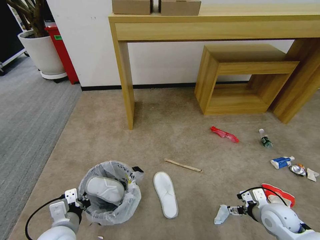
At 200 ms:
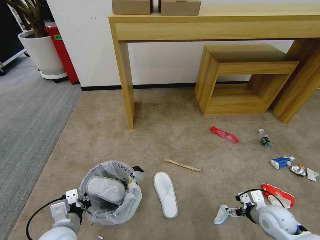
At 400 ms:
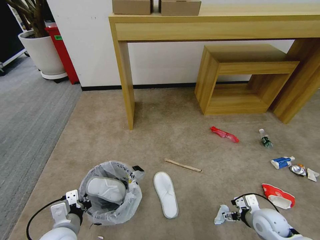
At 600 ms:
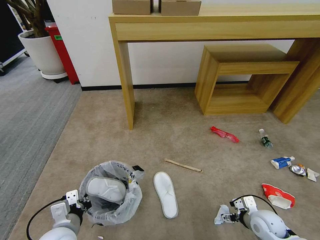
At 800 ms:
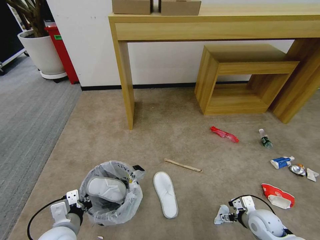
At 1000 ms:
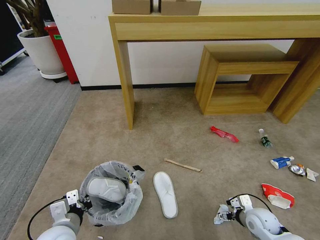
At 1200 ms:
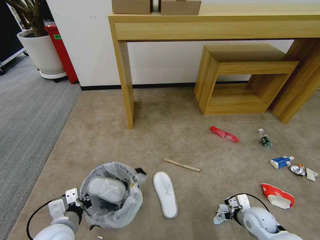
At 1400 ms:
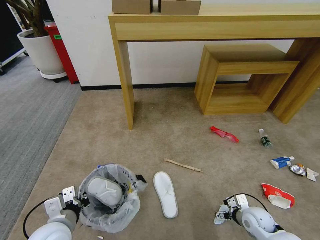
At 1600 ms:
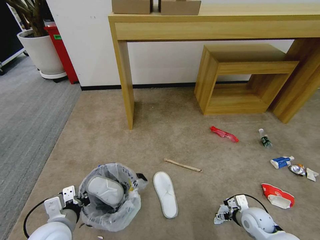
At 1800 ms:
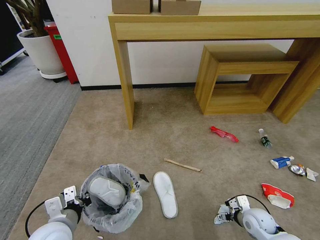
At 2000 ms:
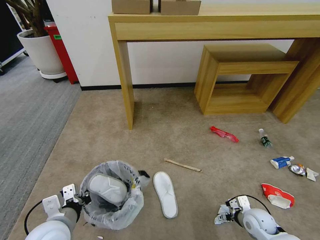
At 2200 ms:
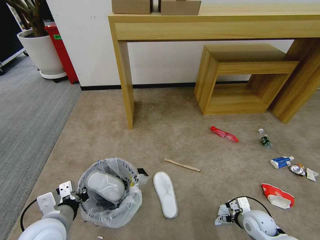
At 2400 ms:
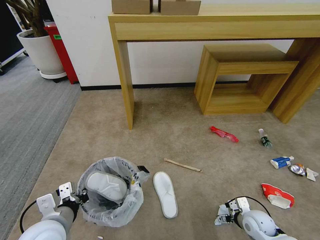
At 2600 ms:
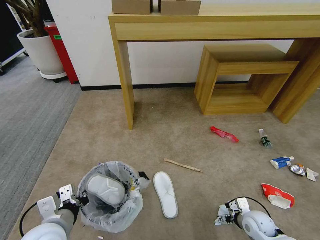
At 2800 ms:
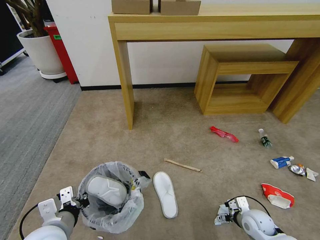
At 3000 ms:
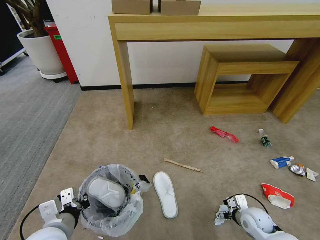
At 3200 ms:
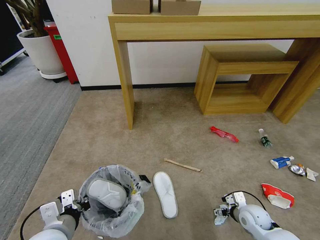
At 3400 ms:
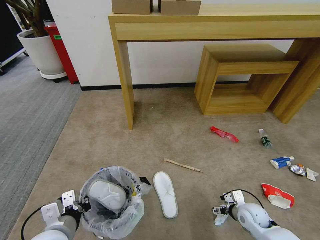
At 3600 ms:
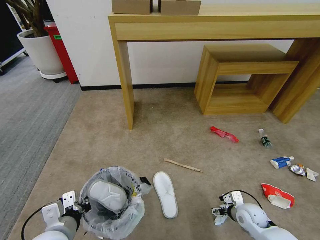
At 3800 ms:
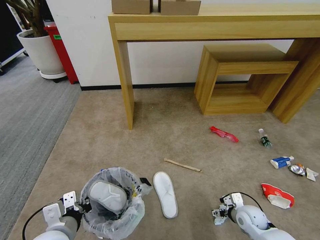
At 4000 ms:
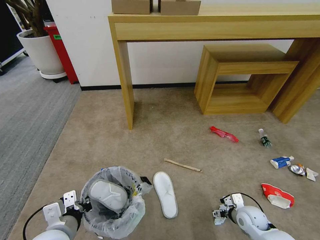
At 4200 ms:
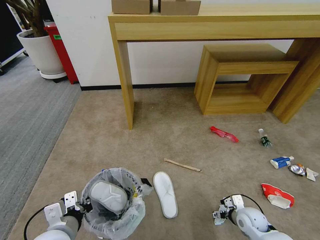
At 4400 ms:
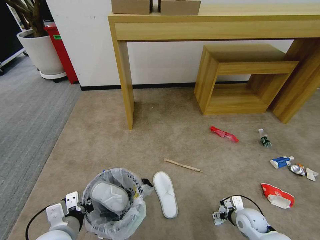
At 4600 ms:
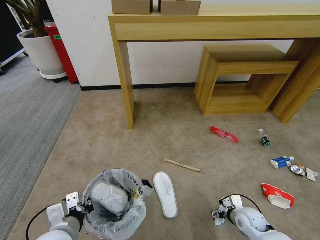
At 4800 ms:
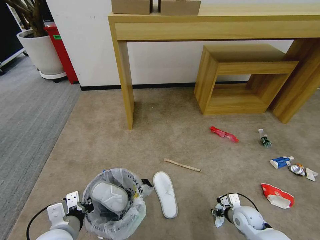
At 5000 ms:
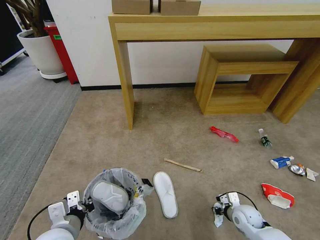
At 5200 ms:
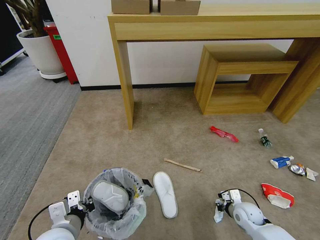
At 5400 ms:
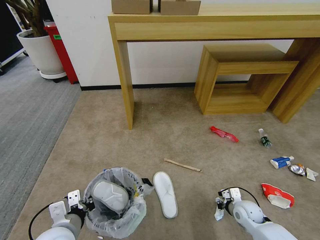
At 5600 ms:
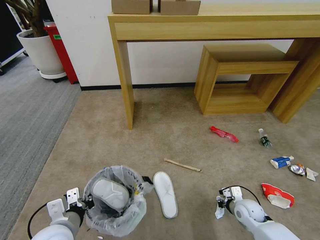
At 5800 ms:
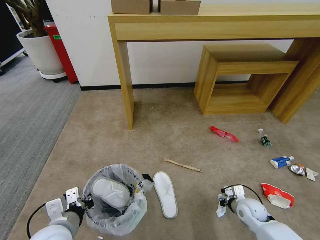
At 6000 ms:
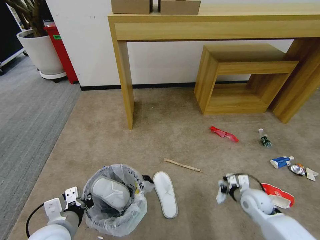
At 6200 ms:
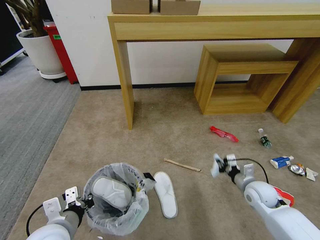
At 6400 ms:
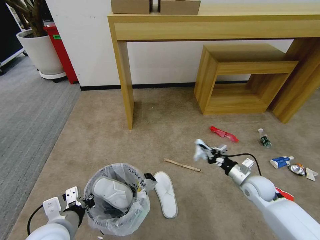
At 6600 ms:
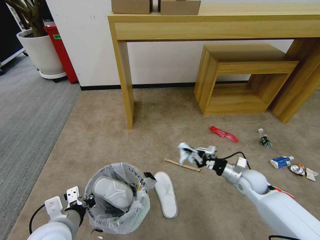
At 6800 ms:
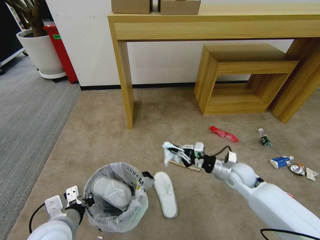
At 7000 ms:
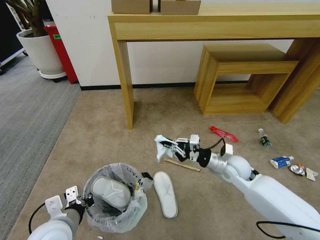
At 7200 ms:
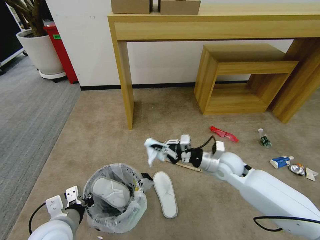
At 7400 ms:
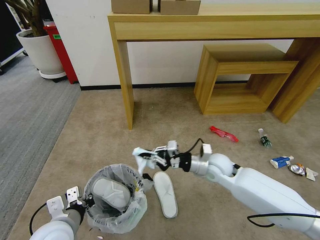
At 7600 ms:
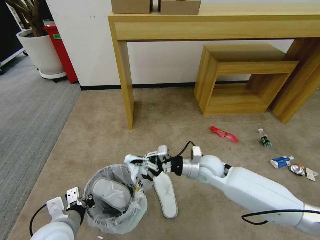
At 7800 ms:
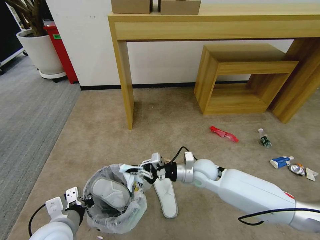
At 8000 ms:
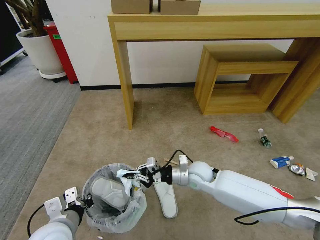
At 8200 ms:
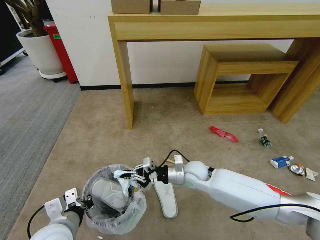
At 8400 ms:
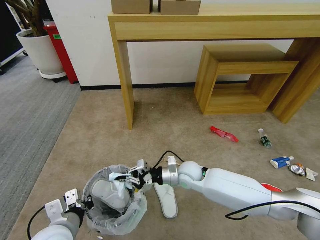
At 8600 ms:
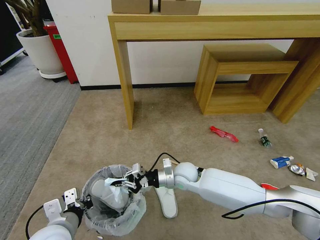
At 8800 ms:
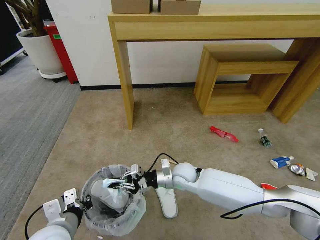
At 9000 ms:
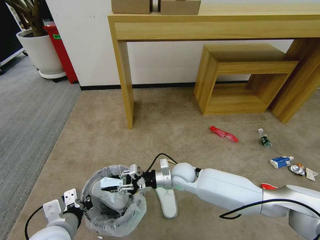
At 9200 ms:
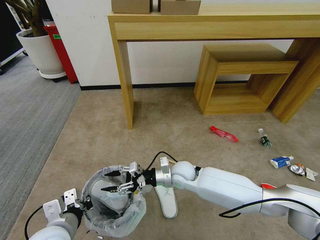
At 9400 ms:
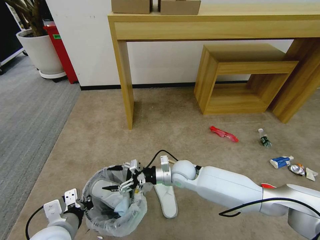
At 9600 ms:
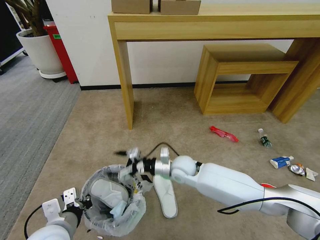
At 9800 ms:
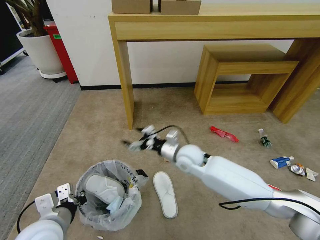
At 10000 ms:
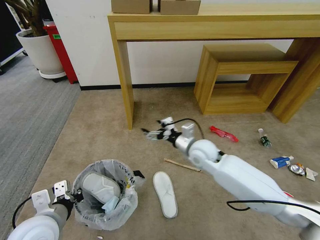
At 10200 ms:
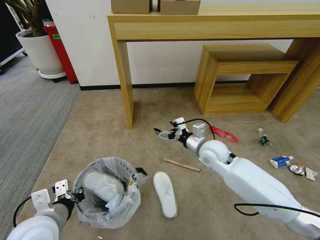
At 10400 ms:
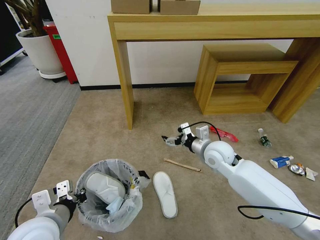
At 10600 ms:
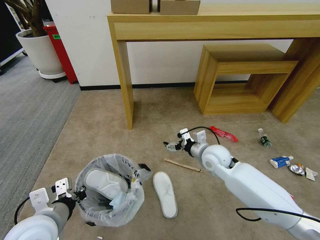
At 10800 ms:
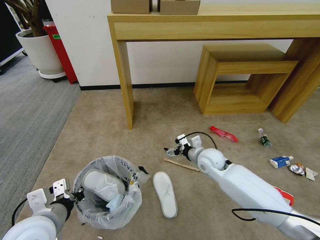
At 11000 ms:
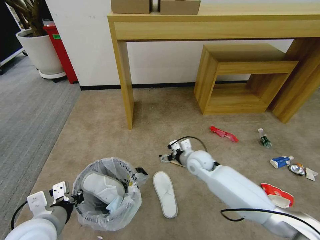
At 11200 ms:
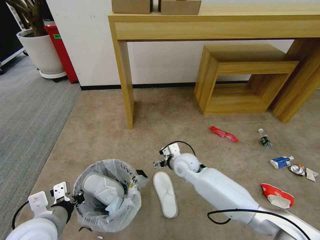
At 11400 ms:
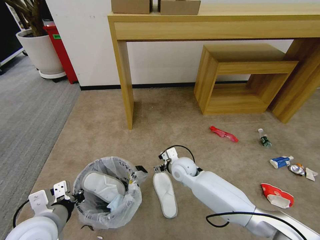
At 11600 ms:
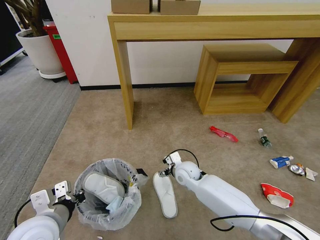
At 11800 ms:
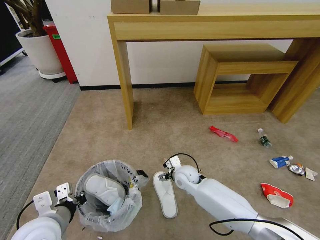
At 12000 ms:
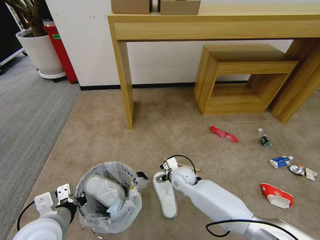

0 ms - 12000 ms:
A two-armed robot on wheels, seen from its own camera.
Task of the whole recording: Pick up the trash bin and place the garbage on the floor into it.
0 ms - 1600 ms: The right gripper shifts some 5 cm downward.
1600 ms - 4400 ms: There are only small adjustments of the grippers.
4400 ms - 6000 ms: The right gripper is displaced upward by approximately 5 cm, and closes up.
6000 ms - 7600 ms: The right gripper heads to the left, upward and forward, covering some 25 cm.
7600 ms - 9000 ms: The right gripper goes approximately 10 cm to the left and downward, and opens.
9000 ms - 10400 ms: The right gripper shifts approximately 15 cm to the right and upward, and opens.
10400 ms - 12000 ms: The right gripper travels downward and to the left by roughly 20 cm.

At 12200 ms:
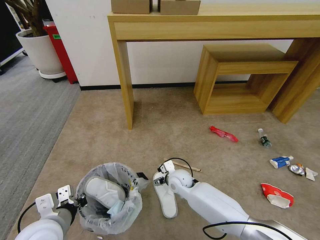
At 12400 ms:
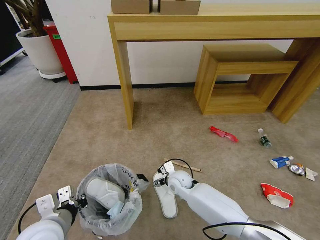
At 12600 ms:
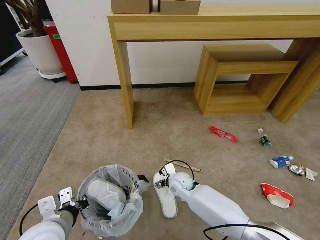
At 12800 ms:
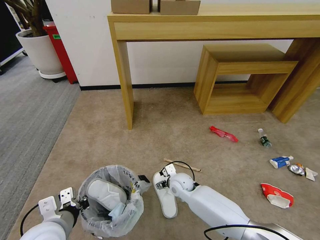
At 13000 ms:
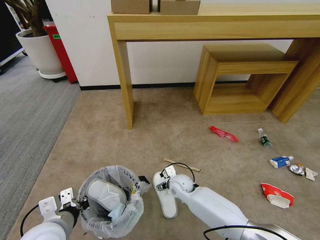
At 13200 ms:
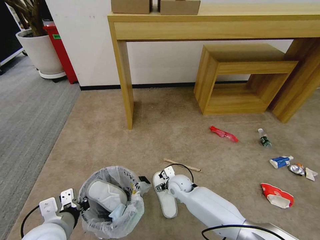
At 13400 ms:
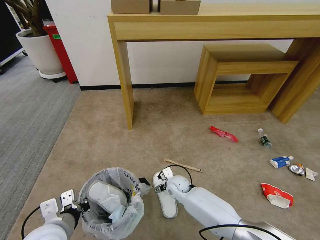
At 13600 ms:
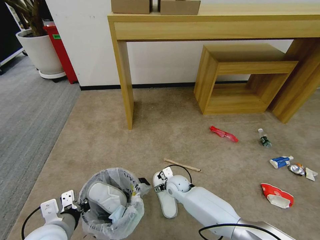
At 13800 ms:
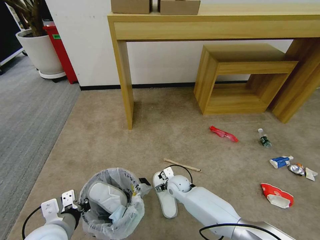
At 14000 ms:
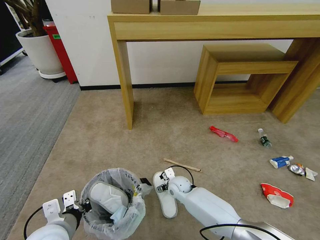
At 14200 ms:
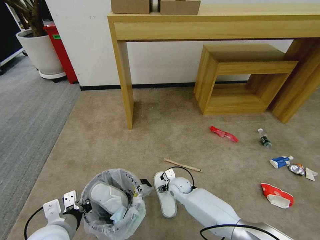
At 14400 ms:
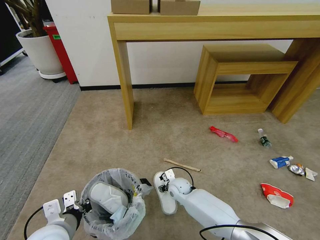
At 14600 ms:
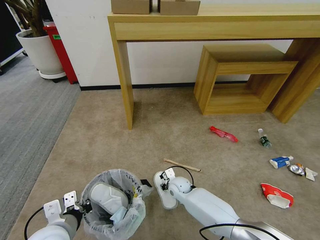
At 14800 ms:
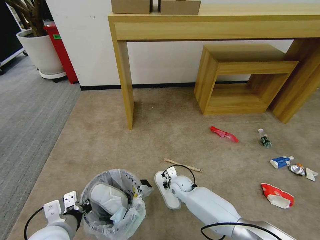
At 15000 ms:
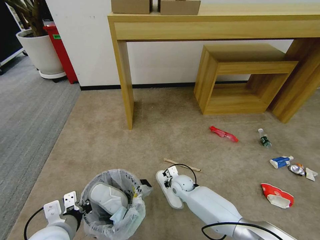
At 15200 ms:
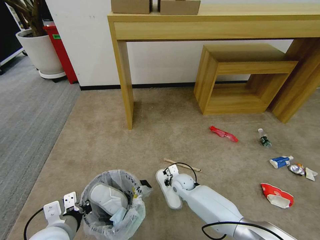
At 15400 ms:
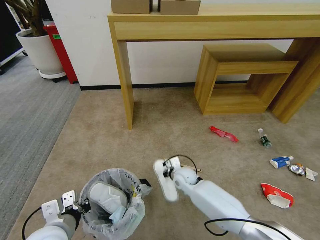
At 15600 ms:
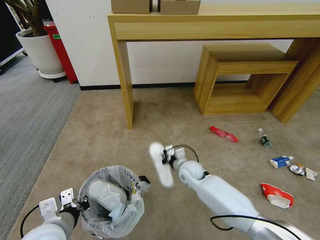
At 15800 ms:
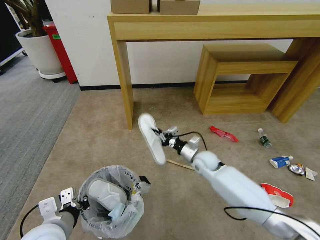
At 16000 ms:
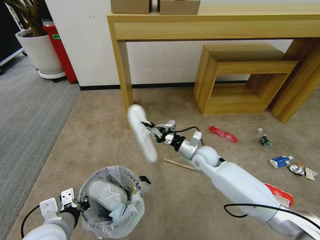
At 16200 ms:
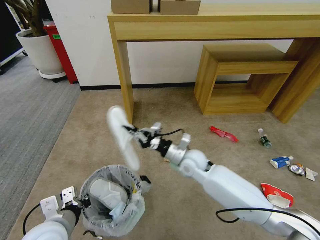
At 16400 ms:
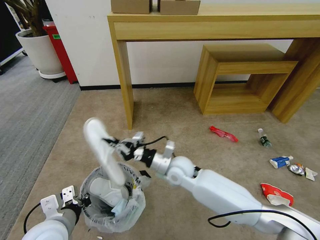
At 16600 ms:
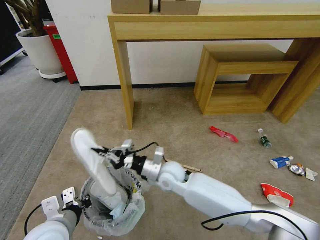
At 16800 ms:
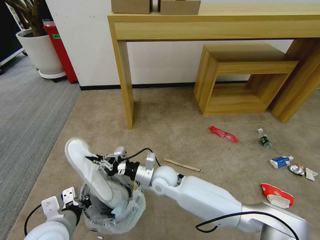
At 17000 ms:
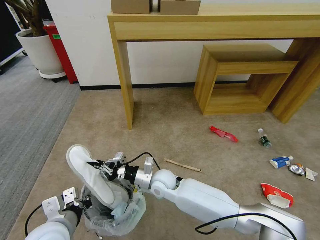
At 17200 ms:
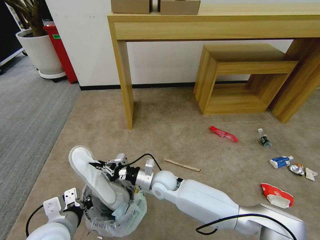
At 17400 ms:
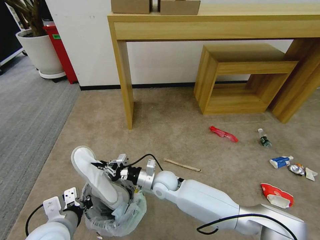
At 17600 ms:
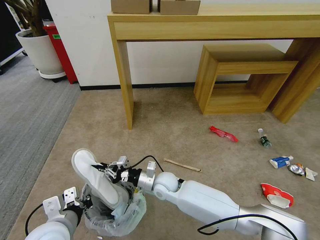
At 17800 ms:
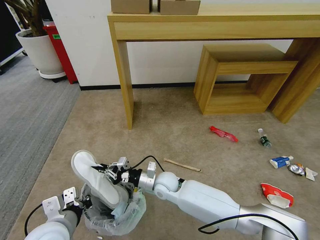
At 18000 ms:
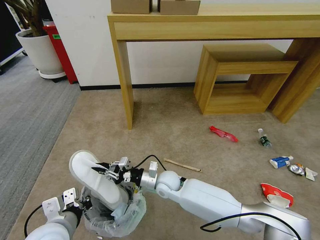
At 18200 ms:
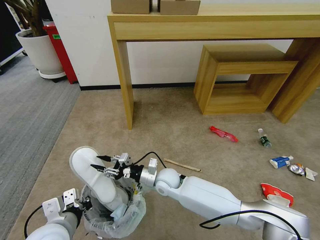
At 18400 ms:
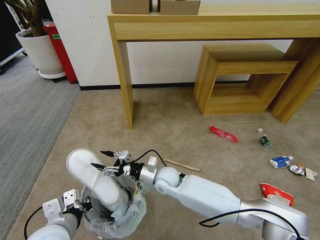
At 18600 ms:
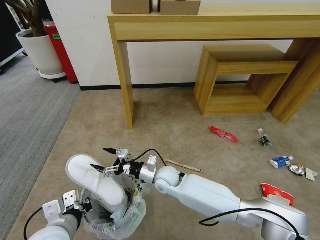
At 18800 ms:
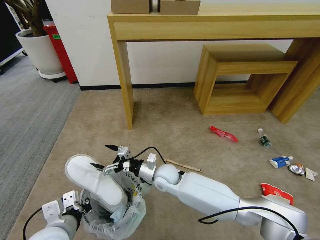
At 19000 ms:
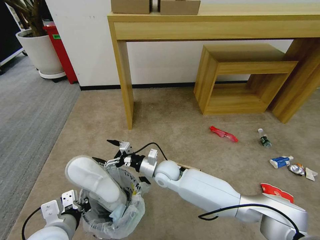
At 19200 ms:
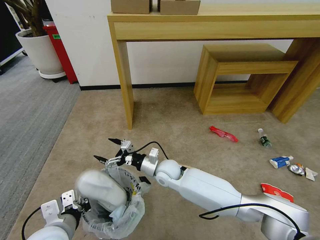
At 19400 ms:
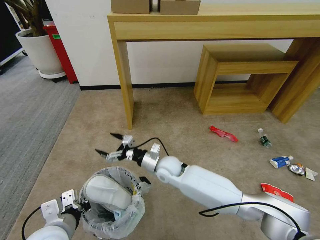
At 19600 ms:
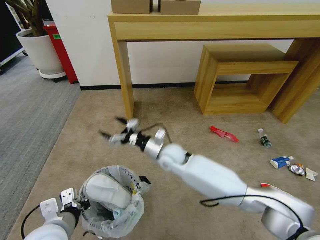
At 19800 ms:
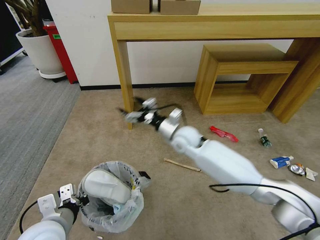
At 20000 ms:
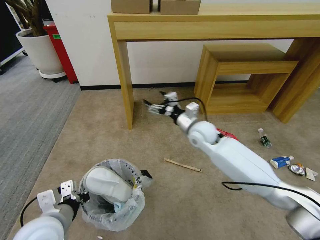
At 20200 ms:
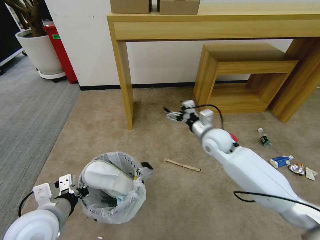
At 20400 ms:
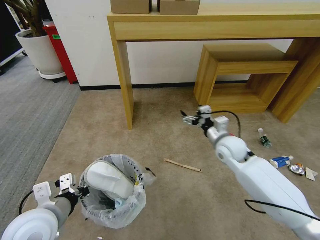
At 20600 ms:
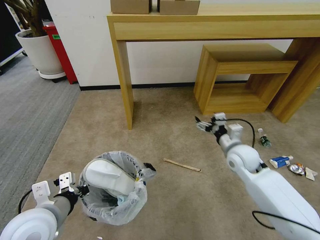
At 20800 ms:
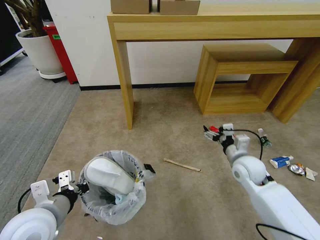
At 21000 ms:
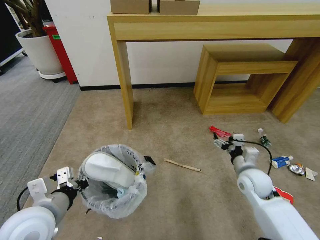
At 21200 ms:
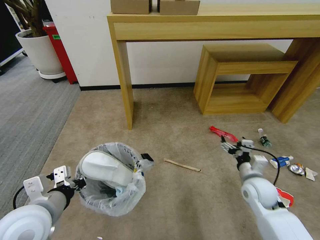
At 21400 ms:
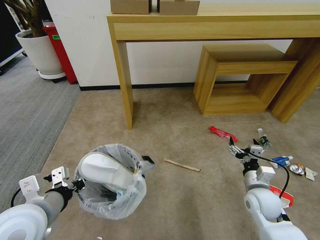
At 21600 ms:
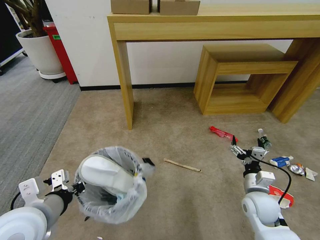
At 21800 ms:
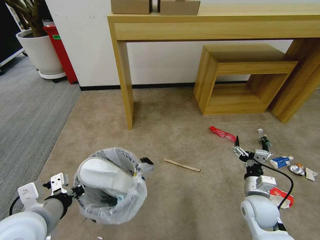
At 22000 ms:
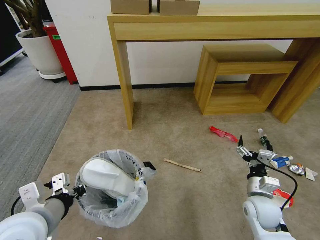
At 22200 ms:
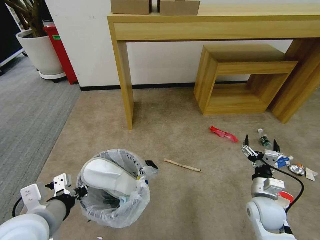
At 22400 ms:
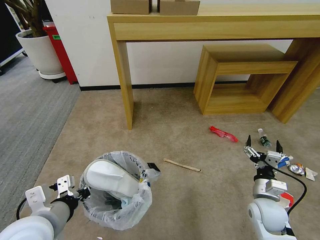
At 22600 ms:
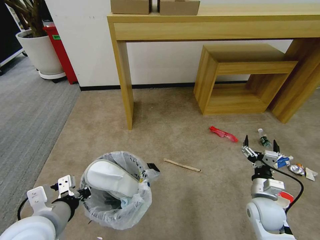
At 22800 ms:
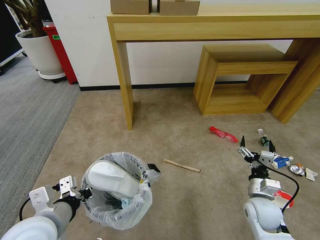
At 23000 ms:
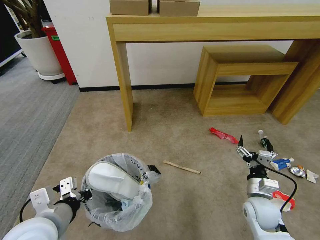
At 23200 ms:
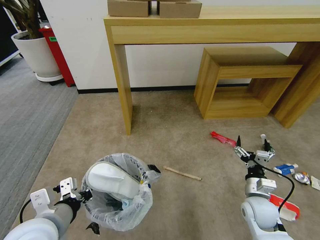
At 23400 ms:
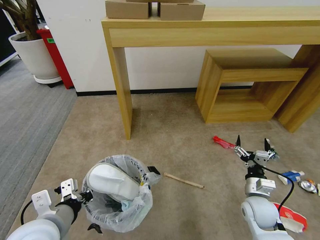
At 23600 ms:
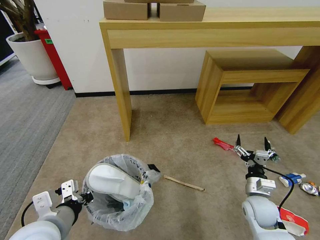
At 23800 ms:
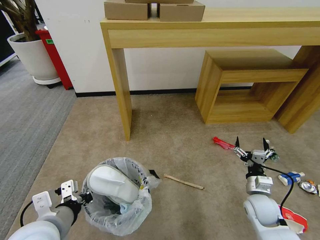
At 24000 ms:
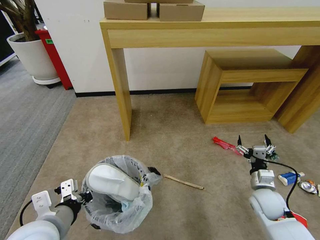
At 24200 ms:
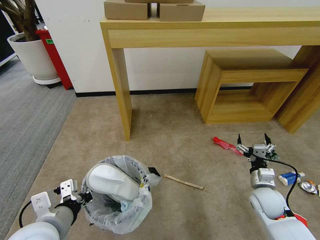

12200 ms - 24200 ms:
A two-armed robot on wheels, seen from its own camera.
Task of the whole recording: Pick up the trash bin and place the garbage on the floor into it.
12200 ms - 13800 ms: The right gripper goes approximately 5 cm downward.
13800 ms - 15200 ms: The right gripper closes up.
15200 ms - 16600 ms: The right gripper moves upward and to the left, roughly 15 cm.
16600 ms - 18200 ms: The right gripper is displaced downward by about 5 cm, and opens.
18200 ms - 19800 ms: The right gripper heads upward, forward and to the right, covering roughly 20 cm, and opens its fingers.
19800 ms - 21200 ms: The left gripper moves upward, some 5 cm. Meanwhile the right gripper travels to the right, backward and downward by some 30 cm.
21200 ms - 22600 ms: The right gripper travels backward by some 5 cm.
